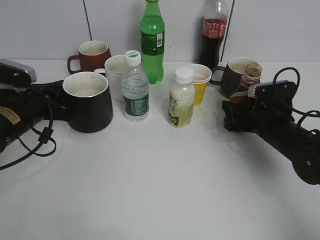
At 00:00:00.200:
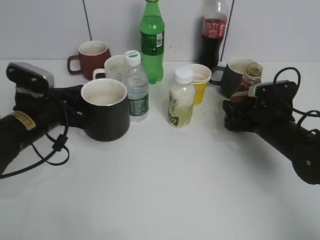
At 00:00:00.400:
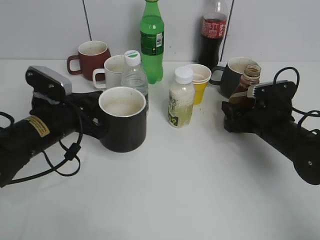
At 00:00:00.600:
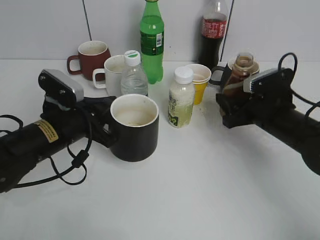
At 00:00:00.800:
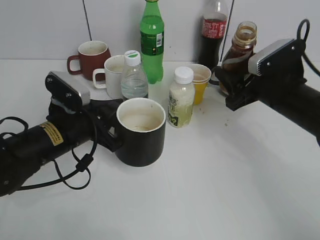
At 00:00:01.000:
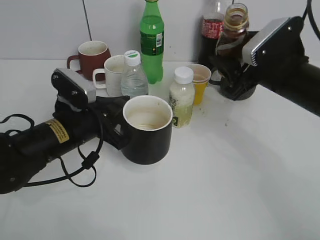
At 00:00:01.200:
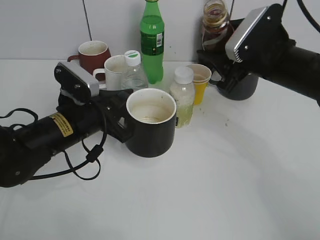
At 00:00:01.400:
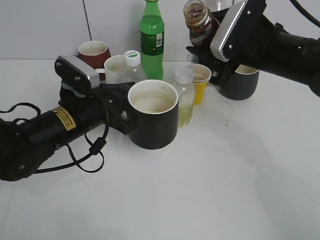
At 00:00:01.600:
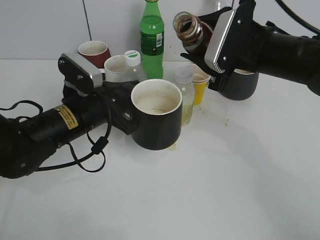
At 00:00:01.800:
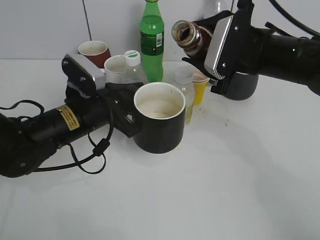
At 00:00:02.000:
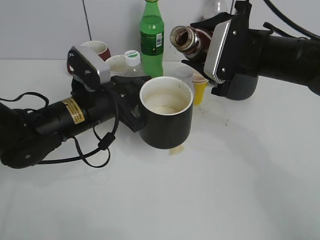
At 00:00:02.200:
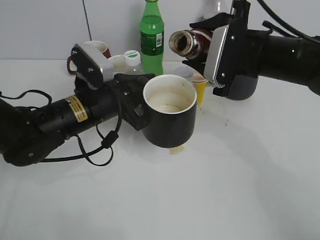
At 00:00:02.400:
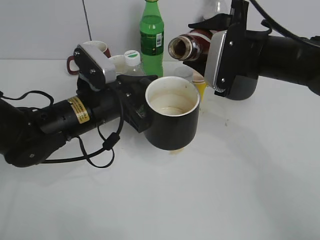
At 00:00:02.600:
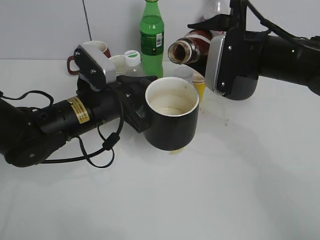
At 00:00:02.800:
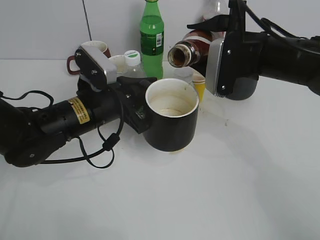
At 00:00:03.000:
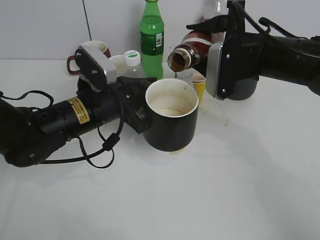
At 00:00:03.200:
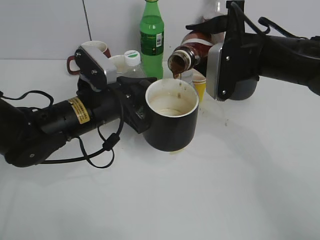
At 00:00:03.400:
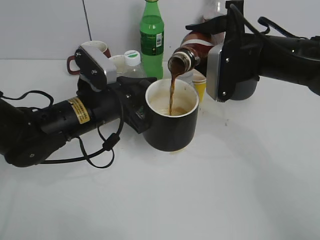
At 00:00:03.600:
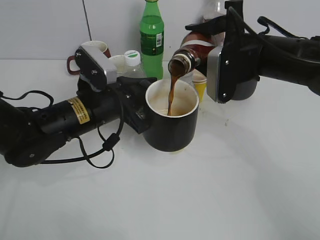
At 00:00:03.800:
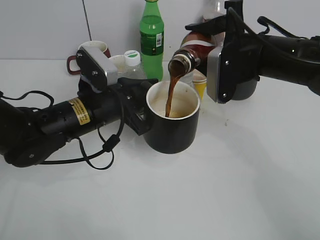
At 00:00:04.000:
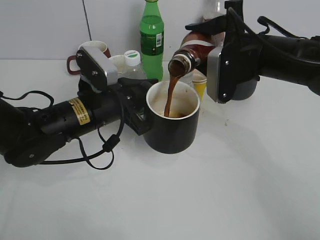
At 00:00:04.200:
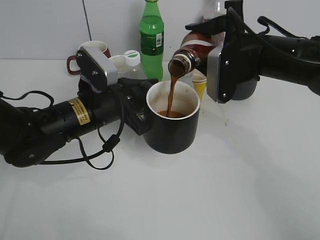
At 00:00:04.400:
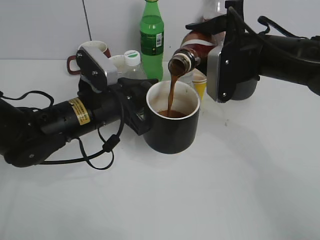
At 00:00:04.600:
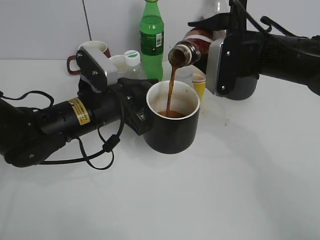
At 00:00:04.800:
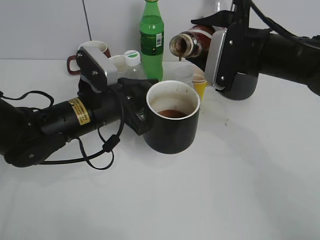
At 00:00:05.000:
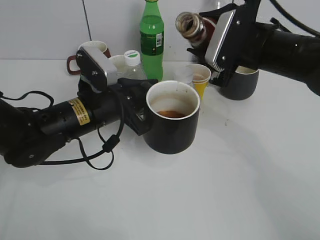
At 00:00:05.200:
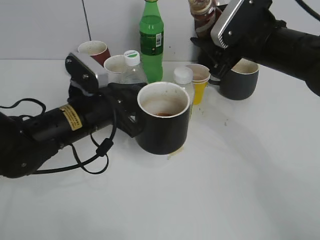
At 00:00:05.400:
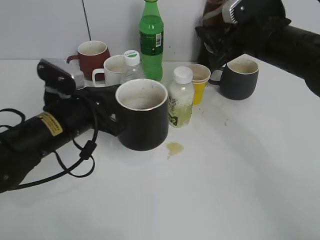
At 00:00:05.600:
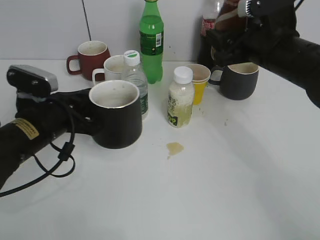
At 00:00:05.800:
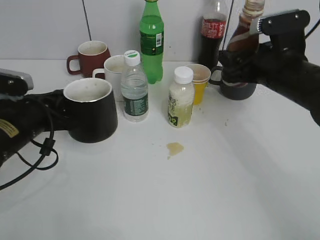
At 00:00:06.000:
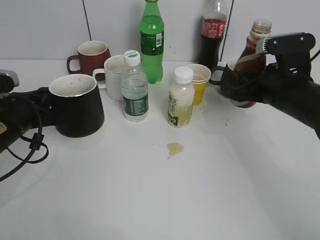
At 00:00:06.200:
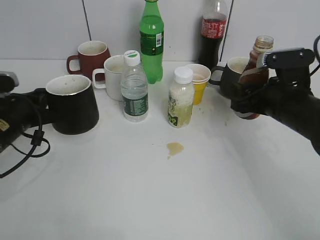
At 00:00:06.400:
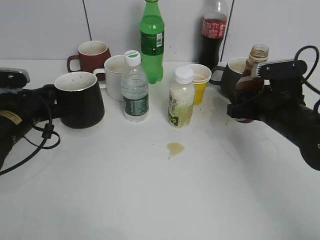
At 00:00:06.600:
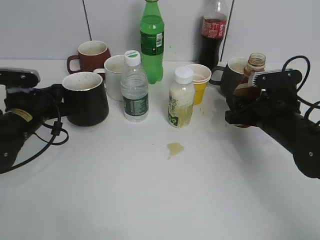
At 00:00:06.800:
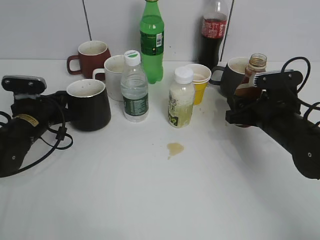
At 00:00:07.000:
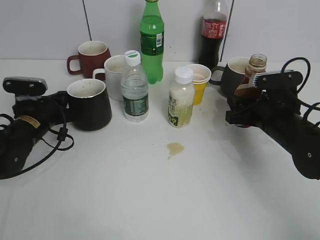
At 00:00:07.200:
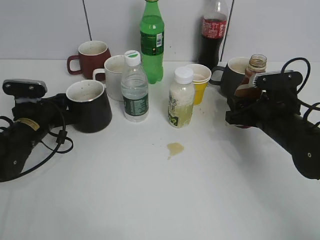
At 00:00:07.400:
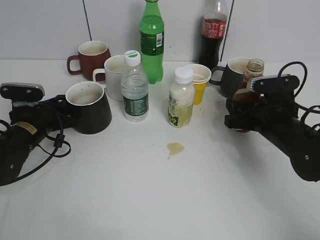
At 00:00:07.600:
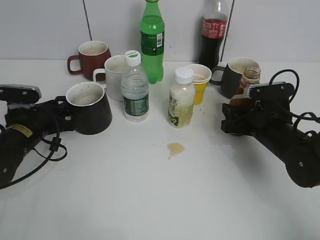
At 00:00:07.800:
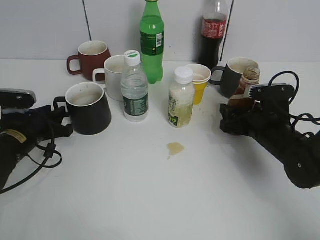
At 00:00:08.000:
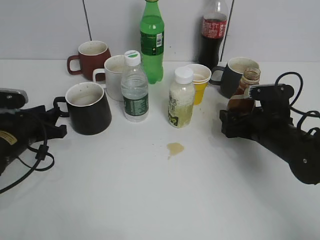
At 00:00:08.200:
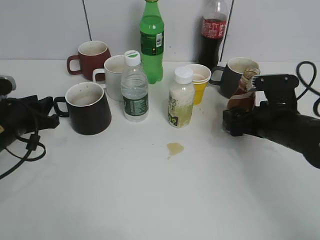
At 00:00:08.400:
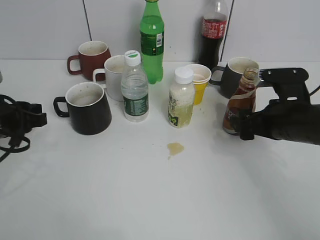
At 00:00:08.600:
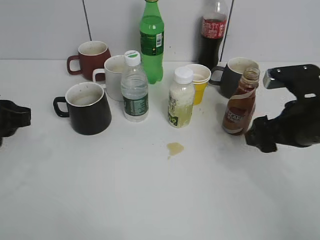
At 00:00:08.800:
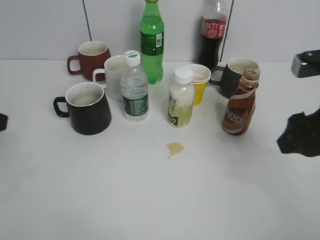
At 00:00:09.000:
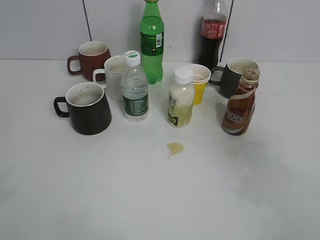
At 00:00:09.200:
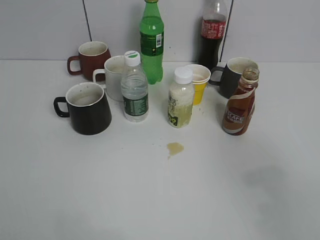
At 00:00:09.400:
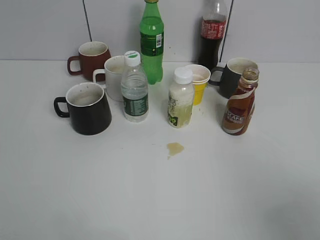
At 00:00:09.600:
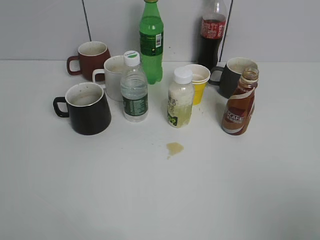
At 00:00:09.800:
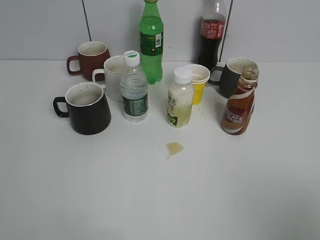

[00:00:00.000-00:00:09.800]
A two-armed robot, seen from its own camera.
Step, 00:00:00.400 to 00:00:05.000: Pour the coffee from bottle to cup with right gripper.
Step, 00:00:05.200 to 00:00:08.200: Place the coffee bottle on the table with right gripper.
00:00:00.000 to 00:00:01.400: The right gripper moves upward and to the left, roughly 15 cm. The left gripper goes about 10 cm to the right.
00:00:02.800 to 00:00:04.200: The grippers stay close to where they were, moving slightly.
00:00:04.200 to 00:00:05.600: The left gripper travels to the left by about 5 cm.
00:00:05.600 to 00:00:07.000: The right gripper heads downward, covering roughly 10 cm. The left gripper goes approximately 10 cm forward, downward and to the left.
00:00:07.000 to 00:00:08.400: The left gripper shifts about 10 cm backward and upward, and opens up; the right gripper opens its fingers.
00:00:08.400 to 00:00:09.800: The grippers both shift backward and upward by some 30 cm. The right gripper closes up.

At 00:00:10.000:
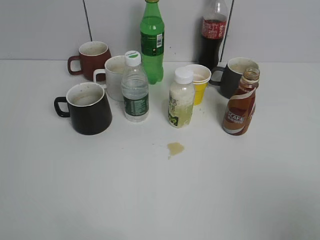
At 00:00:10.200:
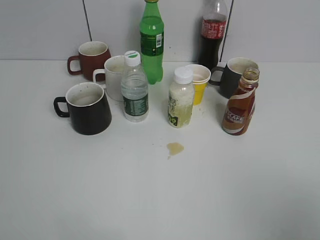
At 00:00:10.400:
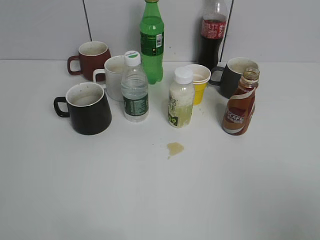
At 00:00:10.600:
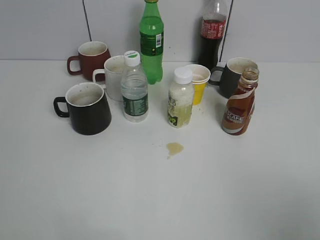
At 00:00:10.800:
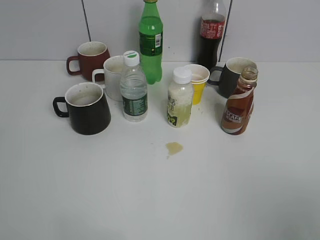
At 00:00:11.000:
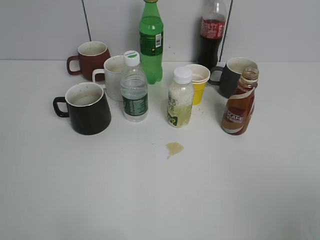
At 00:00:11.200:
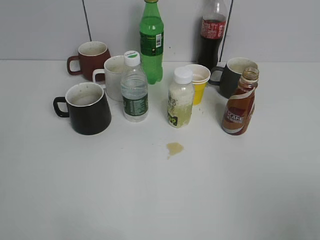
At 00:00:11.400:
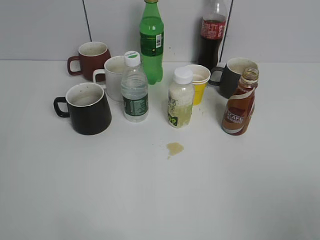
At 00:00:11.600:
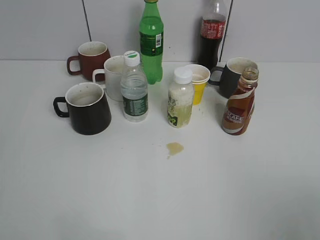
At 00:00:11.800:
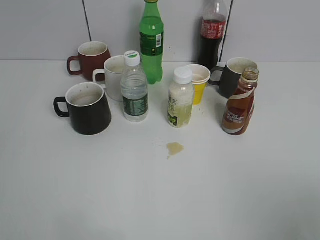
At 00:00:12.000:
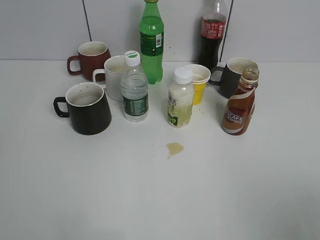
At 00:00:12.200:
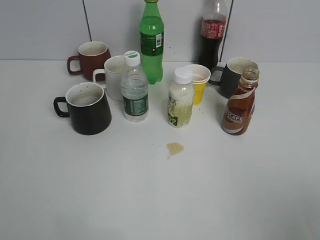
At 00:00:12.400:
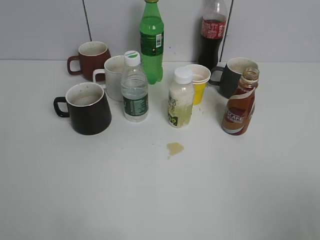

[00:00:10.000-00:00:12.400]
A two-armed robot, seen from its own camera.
00:00:10.000 to 00:00:11.200: There are only small adjustments of the grippers.
00:00:11.200 to 00:00:12.400: Neither gripper changes place.
